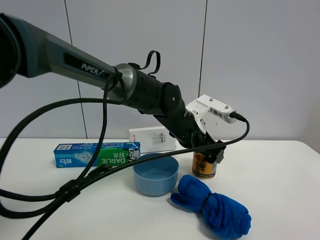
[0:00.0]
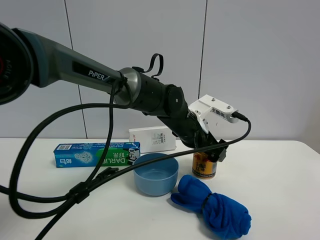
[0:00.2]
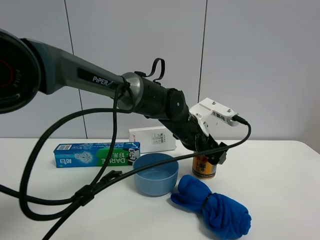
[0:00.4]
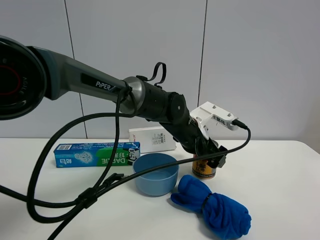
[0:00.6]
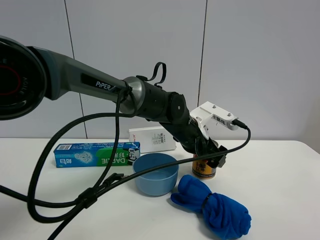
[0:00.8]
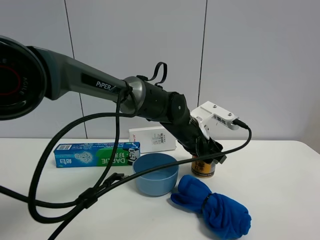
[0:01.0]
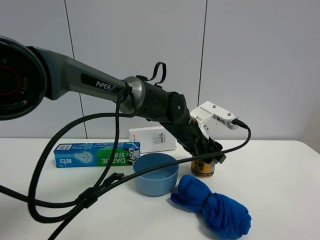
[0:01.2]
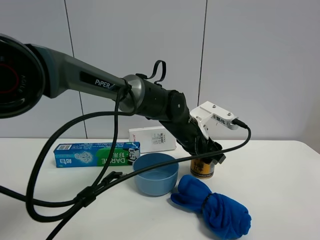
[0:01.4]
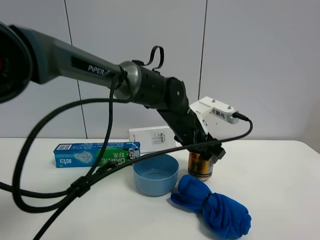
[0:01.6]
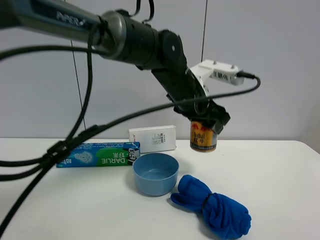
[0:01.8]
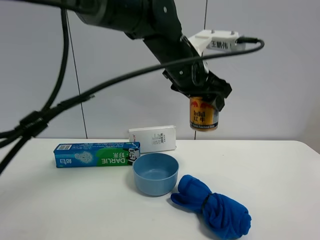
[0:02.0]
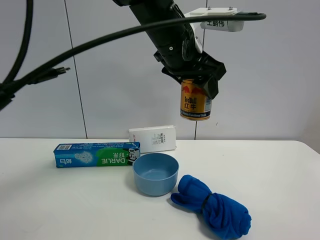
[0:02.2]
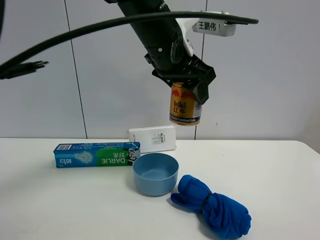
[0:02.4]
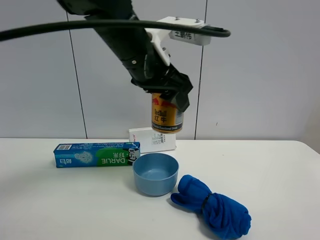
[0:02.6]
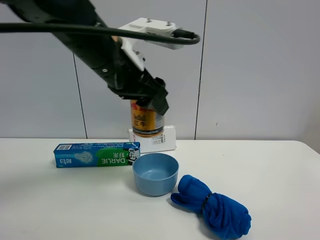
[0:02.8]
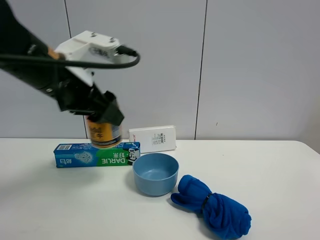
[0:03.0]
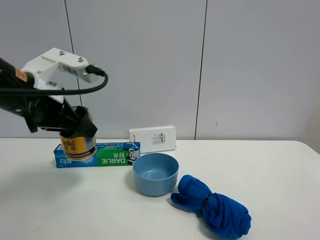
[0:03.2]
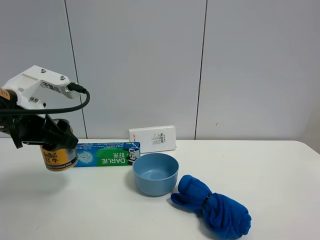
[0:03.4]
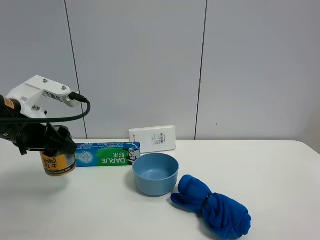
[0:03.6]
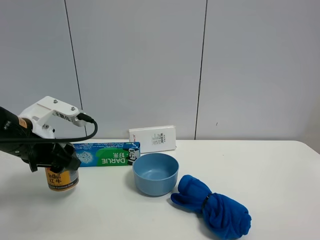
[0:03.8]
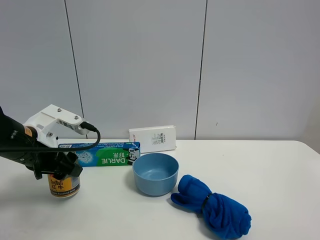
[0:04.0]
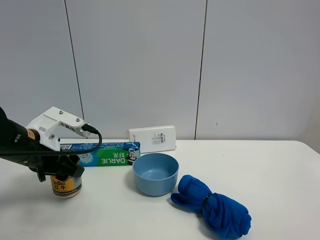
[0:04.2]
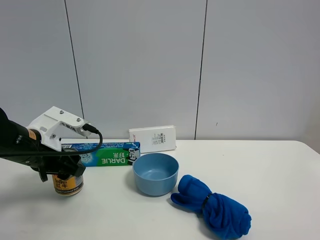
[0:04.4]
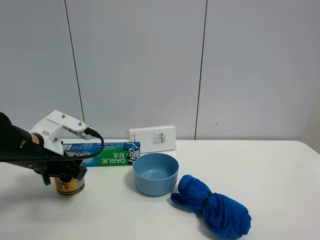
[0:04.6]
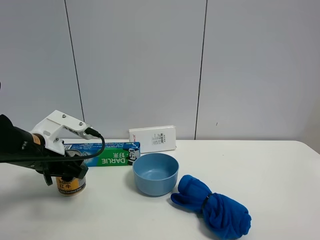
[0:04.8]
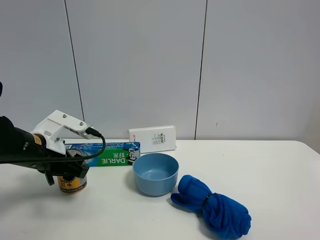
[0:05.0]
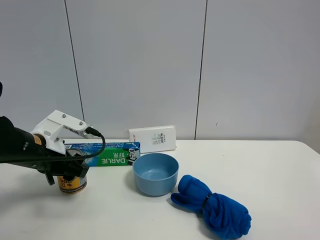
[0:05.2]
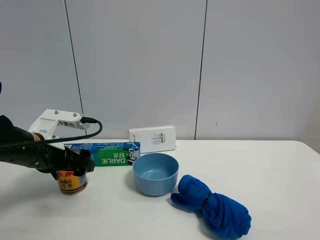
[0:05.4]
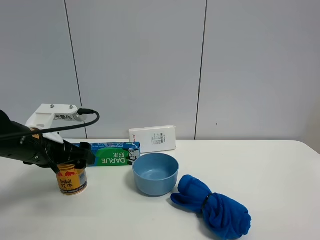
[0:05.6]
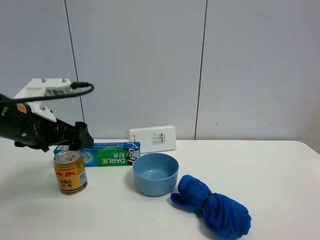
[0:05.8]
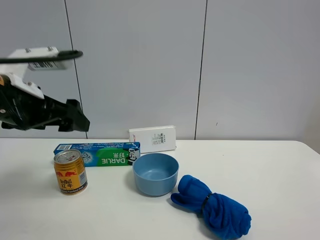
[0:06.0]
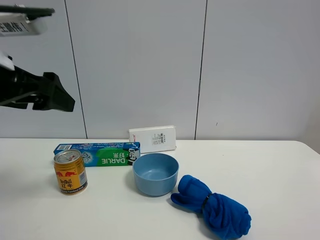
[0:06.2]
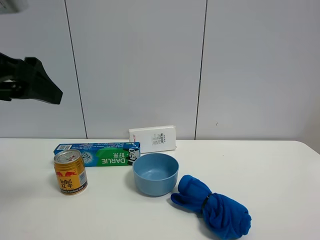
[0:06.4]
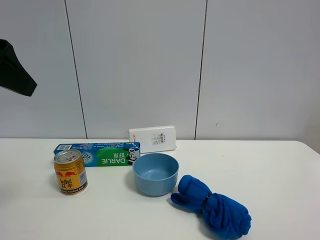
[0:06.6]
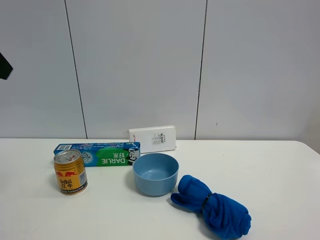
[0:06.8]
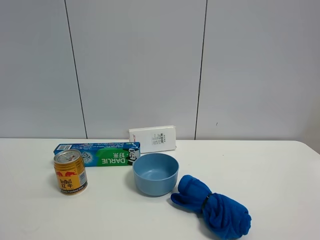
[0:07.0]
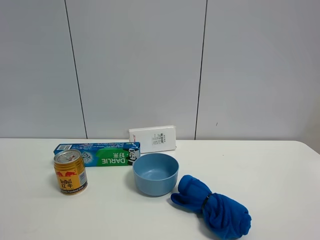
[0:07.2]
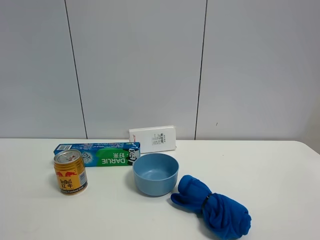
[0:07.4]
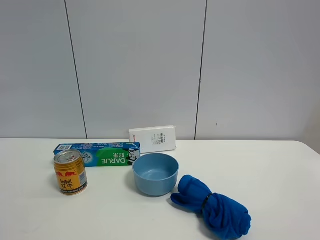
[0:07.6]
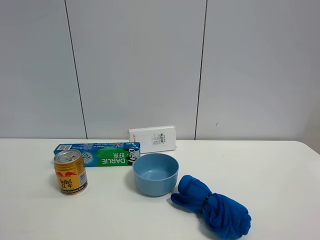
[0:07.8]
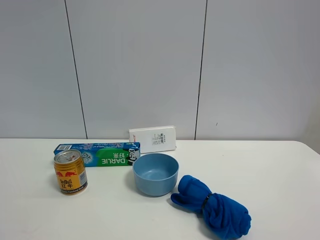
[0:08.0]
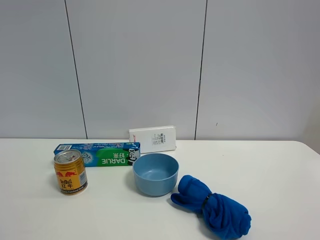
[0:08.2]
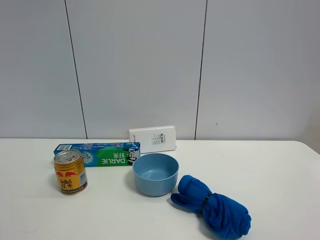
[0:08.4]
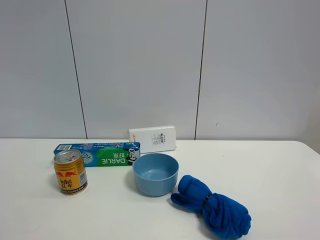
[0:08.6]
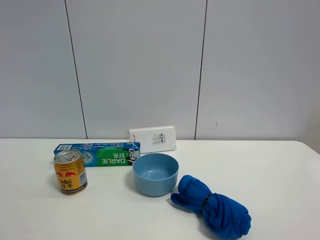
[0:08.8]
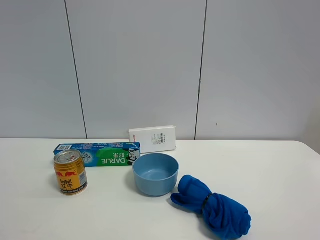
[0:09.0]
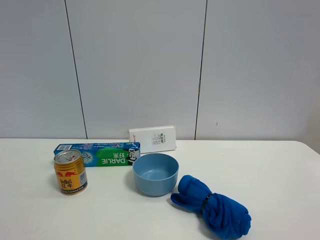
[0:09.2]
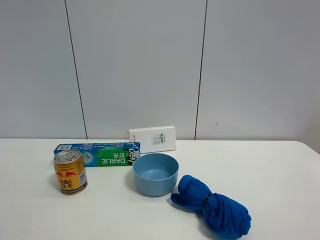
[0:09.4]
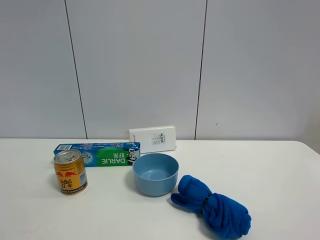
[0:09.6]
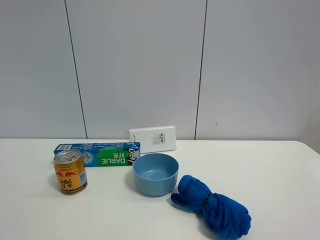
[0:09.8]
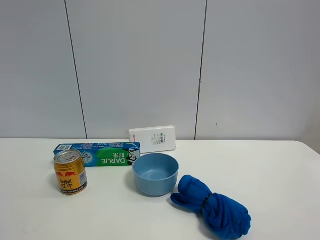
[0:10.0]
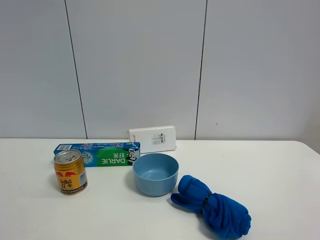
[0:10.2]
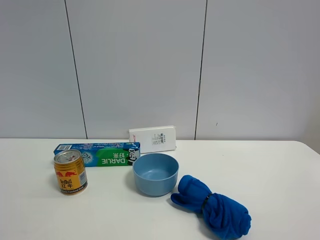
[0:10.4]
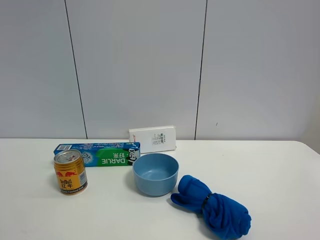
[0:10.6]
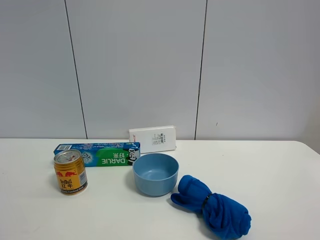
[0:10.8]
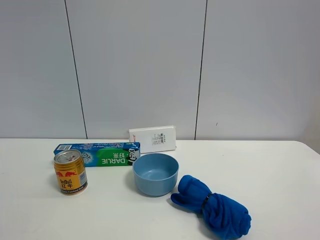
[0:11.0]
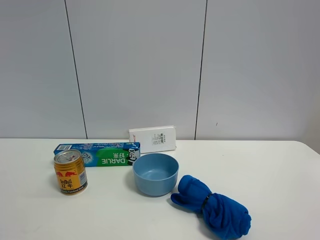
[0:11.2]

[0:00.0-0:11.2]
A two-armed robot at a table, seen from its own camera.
Task of the whole recording: the gripper move the object.
Step, 0:01.2 to 0:05.8: Place the red bull on the table with the left gripper.
0:00.0 to 0:01.6: The left gripper closes up.
0:01.6 to 0:03.2: The left gripper goes some 30 cm to the left, backward and upward.
0:03.2 to 0:04.8: The left gripper shifts roughly 15 cm downward and to the left.
0:04.8 to 0:06.4: The left gripper is displaced upward and backward by about 20 cm, and opens its fingers.
0:06.4 to 0:08.0: The left gripper heads backward and upward, covering about 30 cm.
0:09.6 to 0:11.2: The two grippers keep their place.

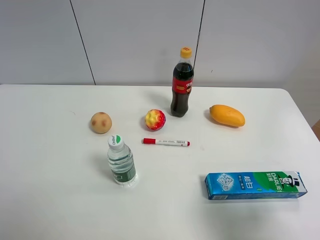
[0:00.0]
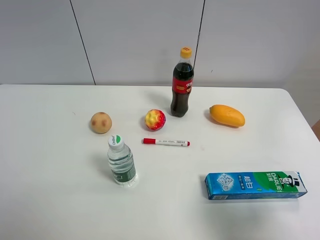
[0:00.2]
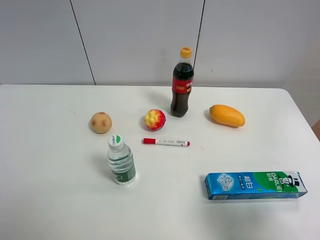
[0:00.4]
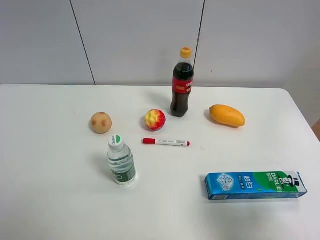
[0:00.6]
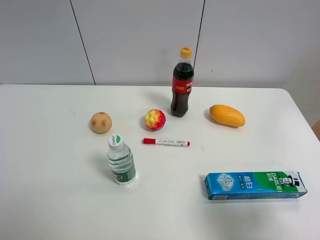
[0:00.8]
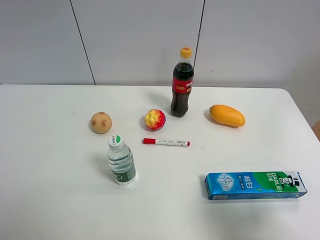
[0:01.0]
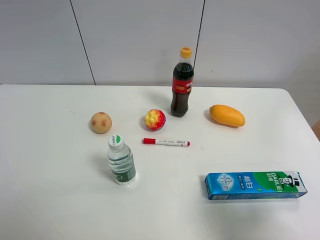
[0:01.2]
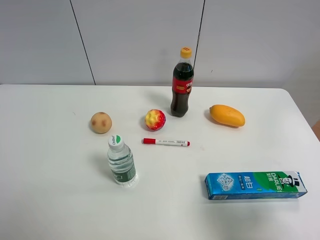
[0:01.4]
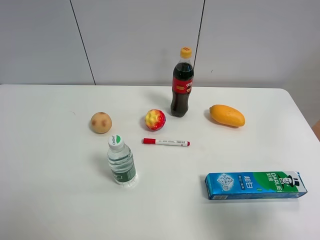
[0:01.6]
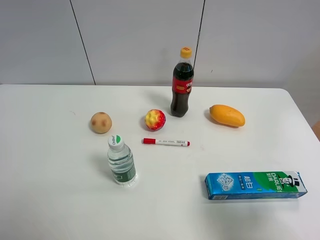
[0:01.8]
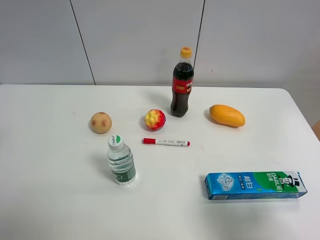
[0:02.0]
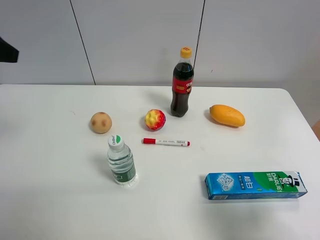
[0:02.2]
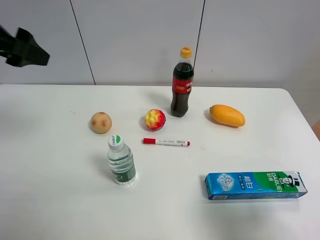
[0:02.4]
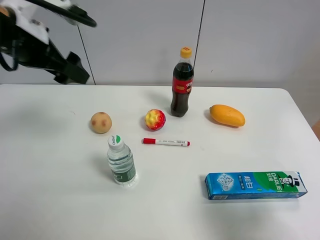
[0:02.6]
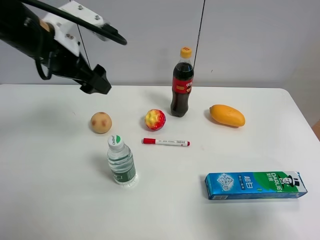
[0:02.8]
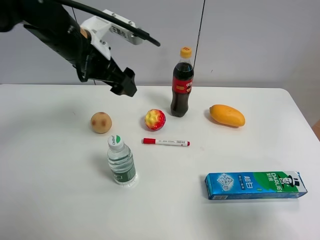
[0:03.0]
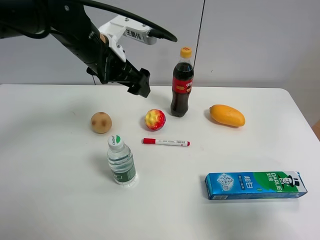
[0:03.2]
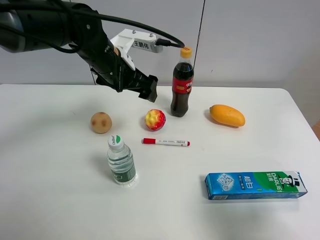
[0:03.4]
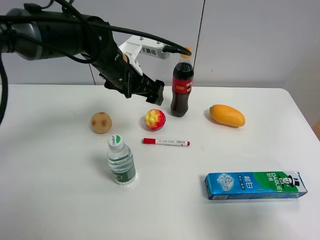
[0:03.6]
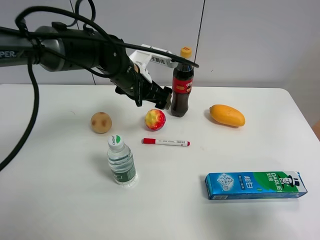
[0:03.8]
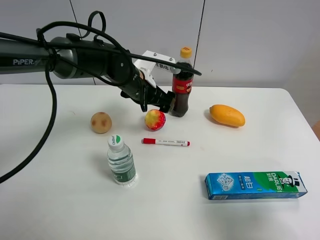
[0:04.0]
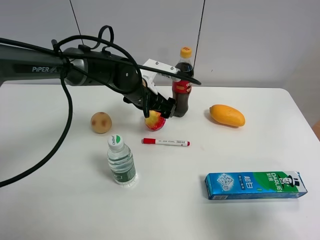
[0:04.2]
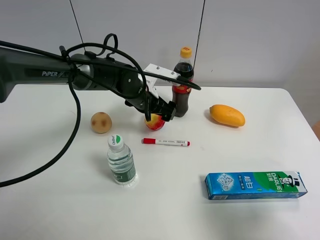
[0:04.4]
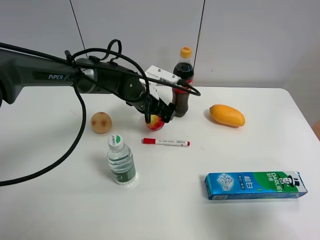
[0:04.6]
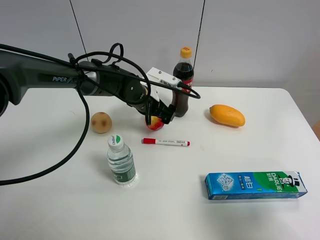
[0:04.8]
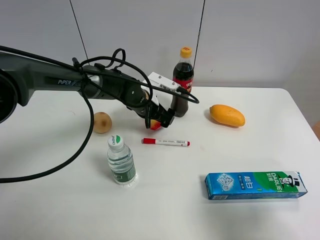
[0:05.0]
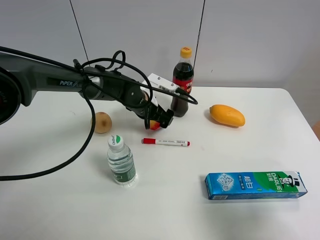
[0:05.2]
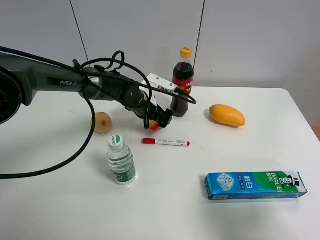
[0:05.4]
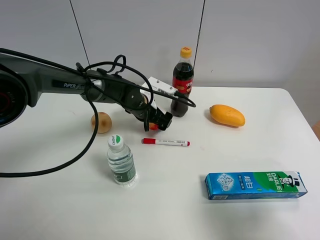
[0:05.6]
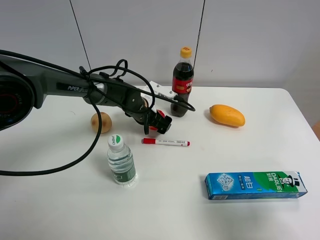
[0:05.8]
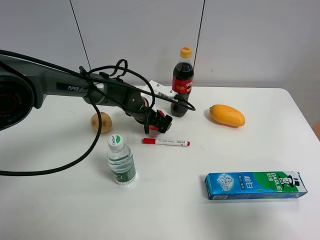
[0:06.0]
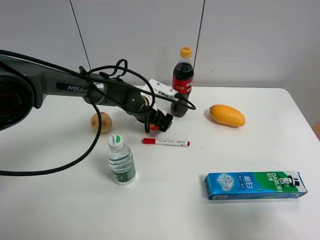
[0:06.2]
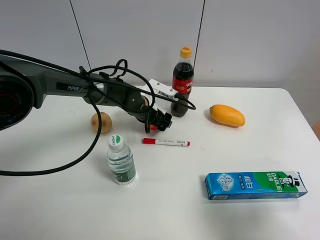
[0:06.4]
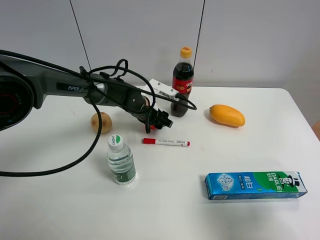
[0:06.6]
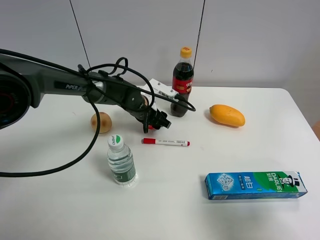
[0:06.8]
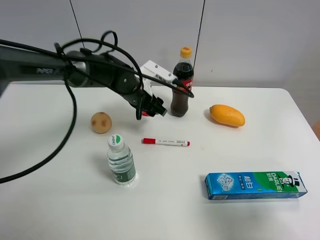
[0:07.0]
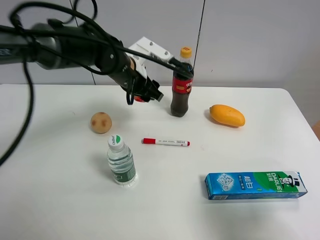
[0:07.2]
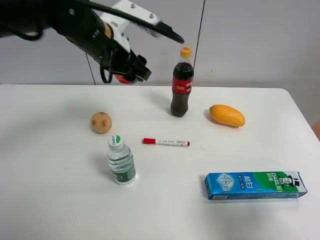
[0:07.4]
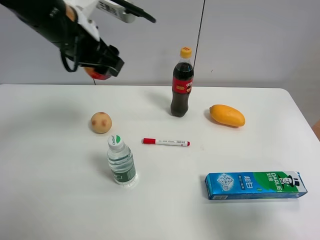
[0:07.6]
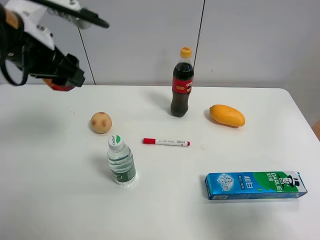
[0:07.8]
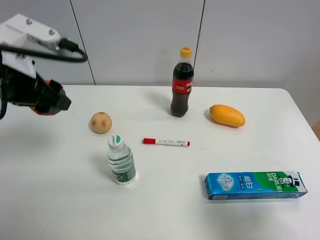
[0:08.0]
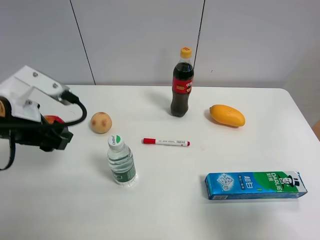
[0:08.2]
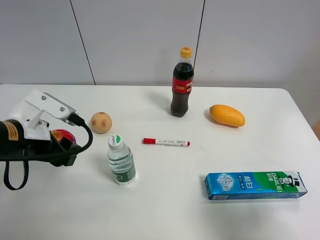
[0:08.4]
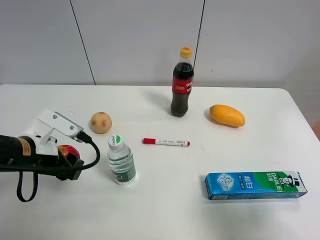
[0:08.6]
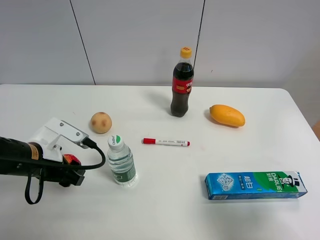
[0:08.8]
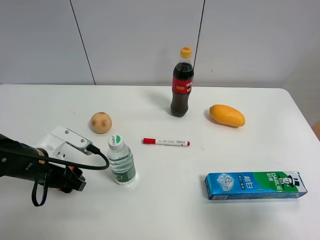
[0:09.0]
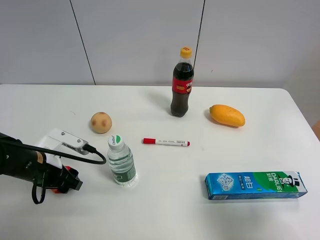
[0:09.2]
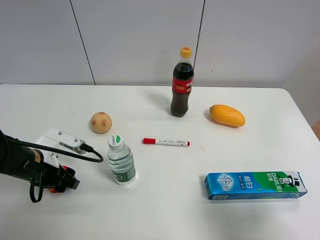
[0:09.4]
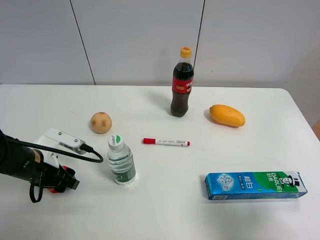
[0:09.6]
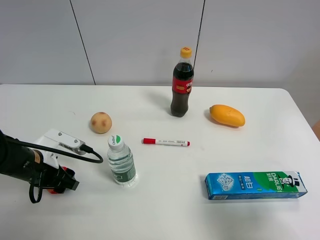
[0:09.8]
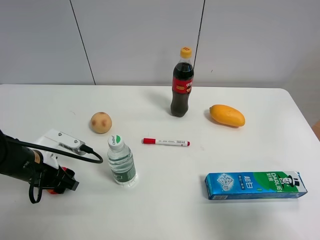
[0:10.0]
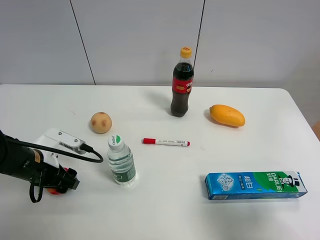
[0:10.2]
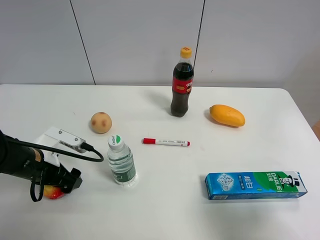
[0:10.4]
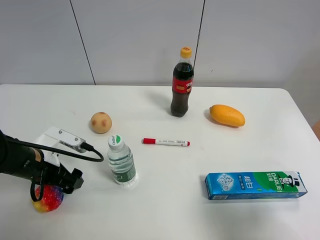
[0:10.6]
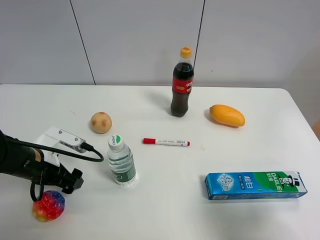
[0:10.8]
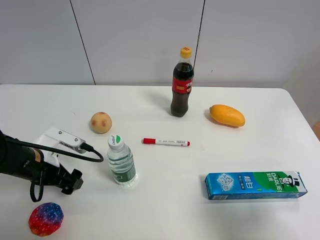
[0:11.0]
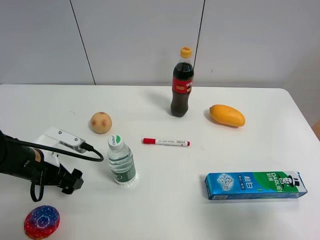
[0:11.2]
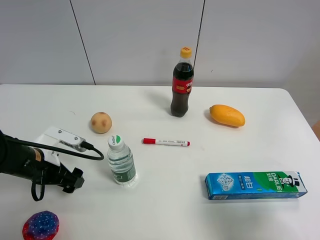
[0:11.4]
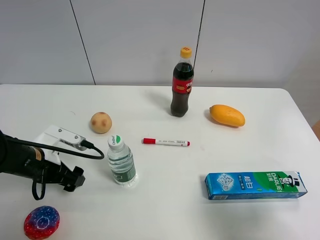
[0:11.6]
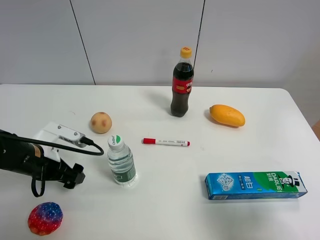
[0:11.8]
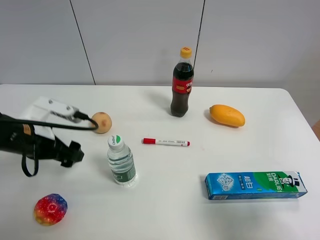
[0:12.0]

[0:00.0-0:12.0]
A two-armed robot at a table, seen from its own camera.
Task of the whole recording: the gripper move the object.
Step, 0:00.0 to 0:06.4: Grasp the colorful ball with the left gripper.
Step, 0:06.6 to 0:10.4: Place the colorful ball on the table with the left gripper.
0:01.6 to 0:03.0: The left gripper heads forward and to the right, covering some 35 cm.
0:03.0 to 0:04.4: The left gripper goes approximately 15 cm downward and to the right.
0:04.4 to 0:06.0: The left gripper goes approximately 5 cm downward.
0:06.0 to 0:07.6: The left gripper shifts roughly 25 cm upward, and closes up.
0:07.6 to 0:09.0: The left gripper heads downward and backward, covering about 25 cm.
0:09.0 to 0:10.4: The left gripper opens.
0:10.4 to 0:12.0: The left gripper moves upward, some 10 cm.
